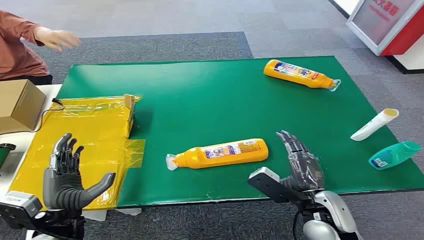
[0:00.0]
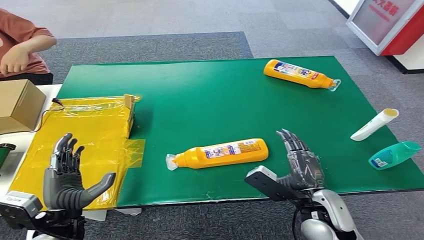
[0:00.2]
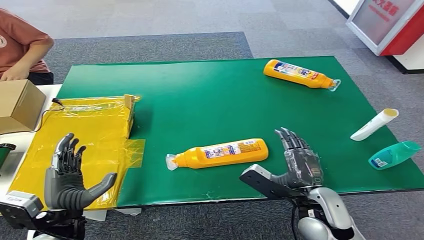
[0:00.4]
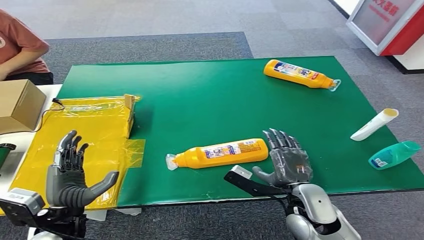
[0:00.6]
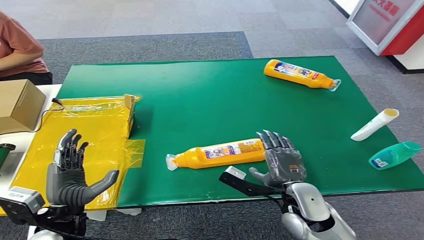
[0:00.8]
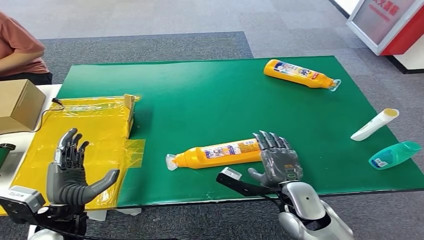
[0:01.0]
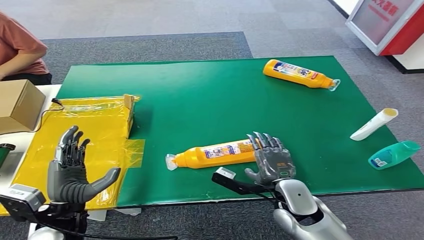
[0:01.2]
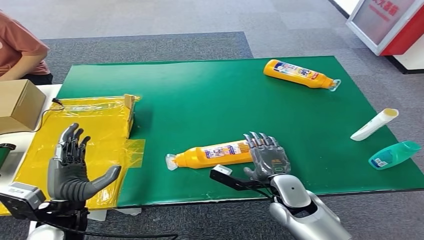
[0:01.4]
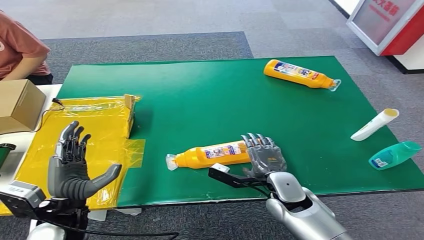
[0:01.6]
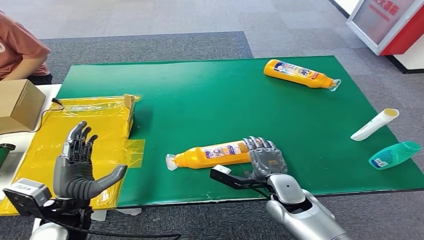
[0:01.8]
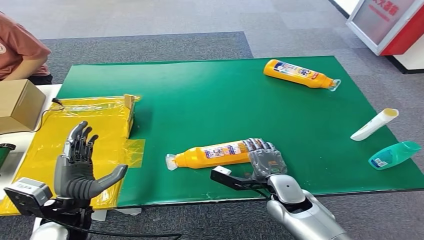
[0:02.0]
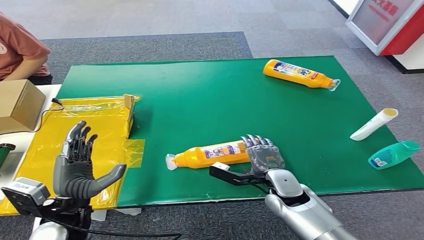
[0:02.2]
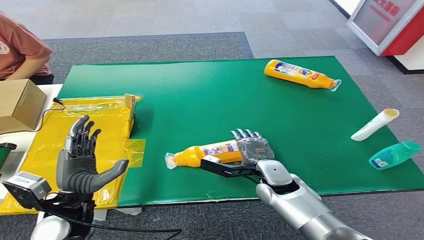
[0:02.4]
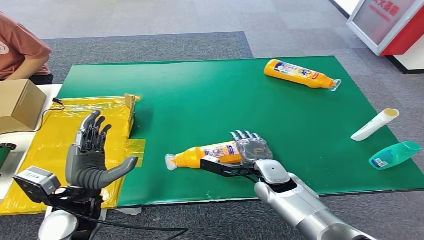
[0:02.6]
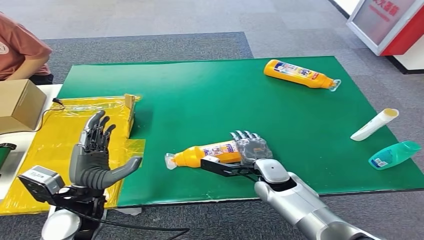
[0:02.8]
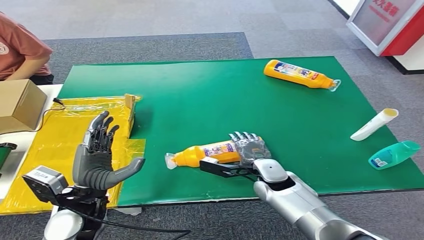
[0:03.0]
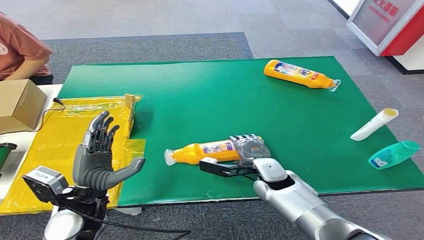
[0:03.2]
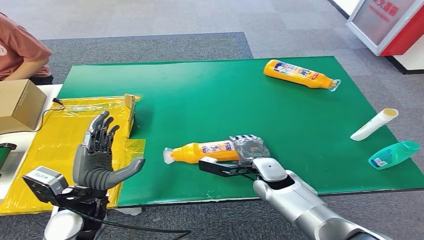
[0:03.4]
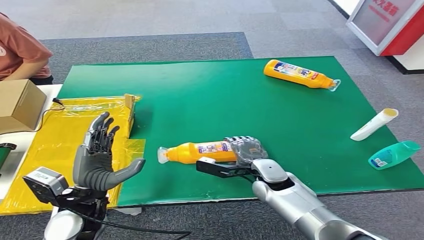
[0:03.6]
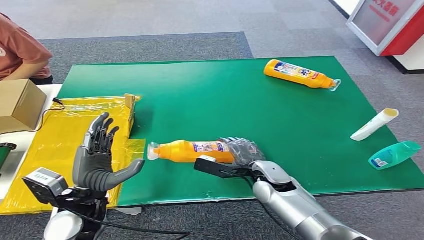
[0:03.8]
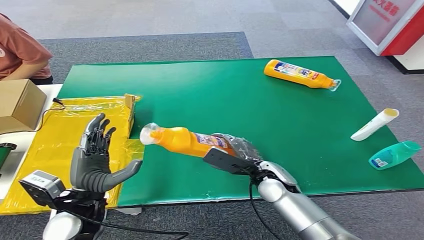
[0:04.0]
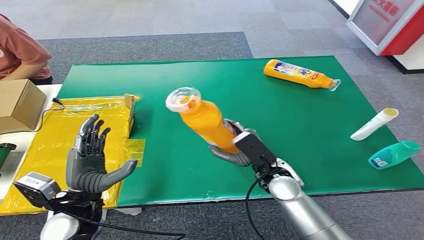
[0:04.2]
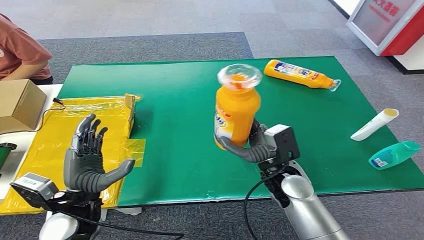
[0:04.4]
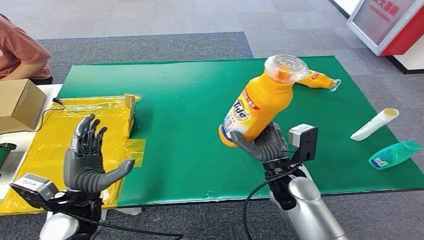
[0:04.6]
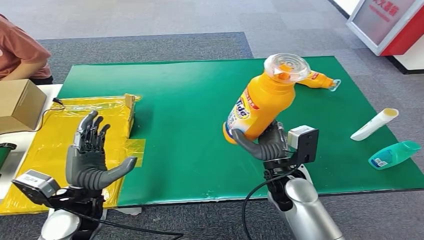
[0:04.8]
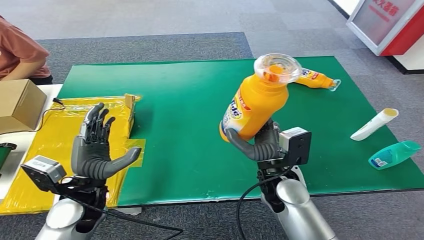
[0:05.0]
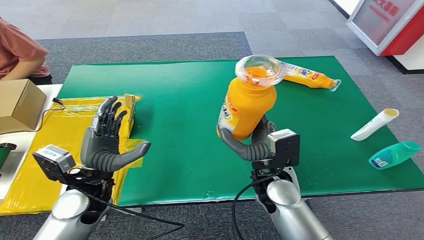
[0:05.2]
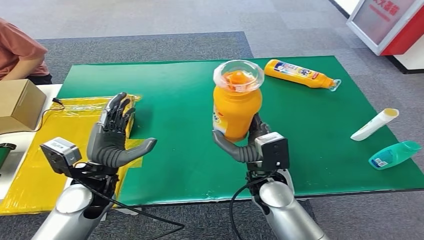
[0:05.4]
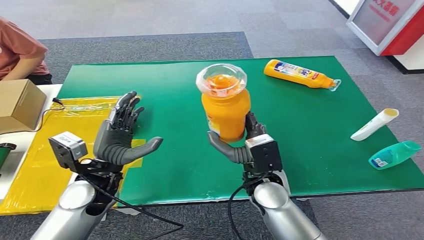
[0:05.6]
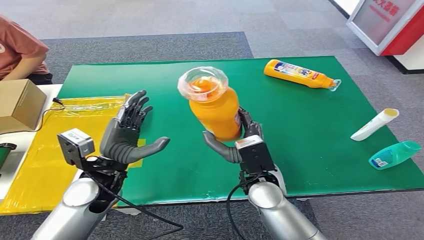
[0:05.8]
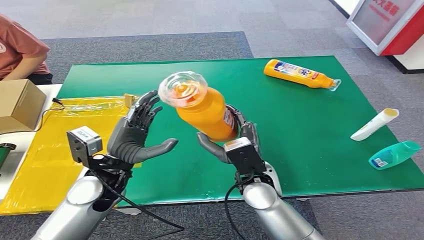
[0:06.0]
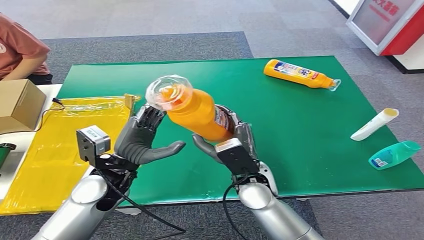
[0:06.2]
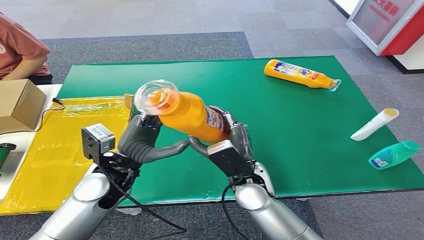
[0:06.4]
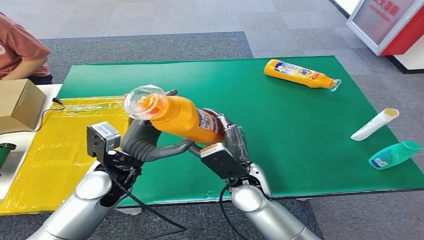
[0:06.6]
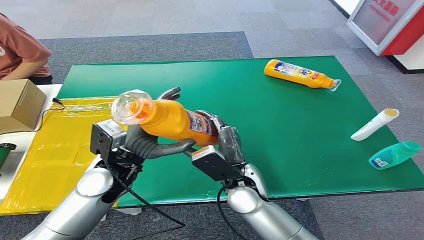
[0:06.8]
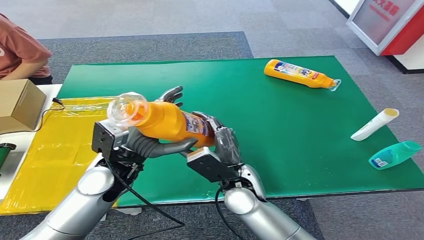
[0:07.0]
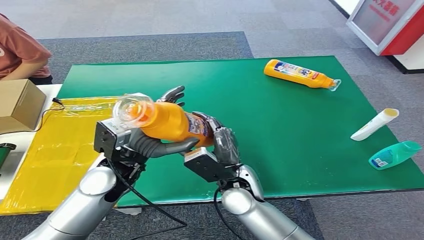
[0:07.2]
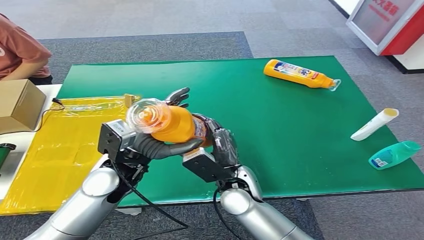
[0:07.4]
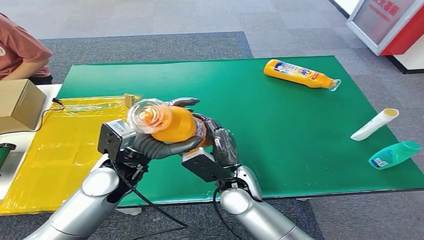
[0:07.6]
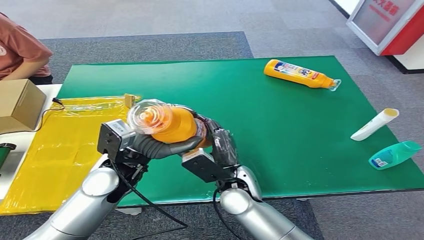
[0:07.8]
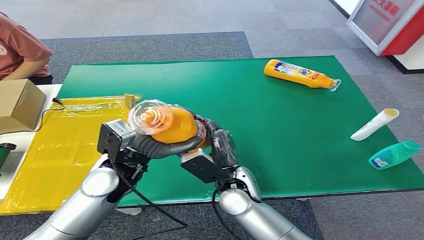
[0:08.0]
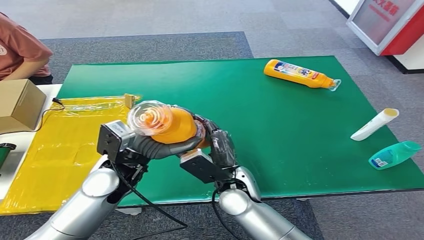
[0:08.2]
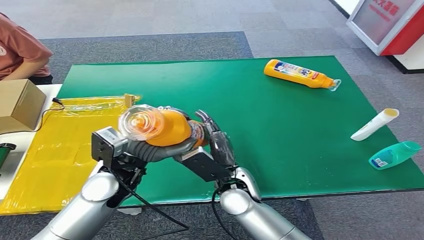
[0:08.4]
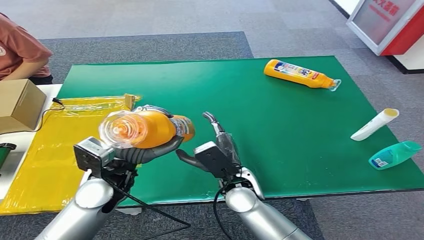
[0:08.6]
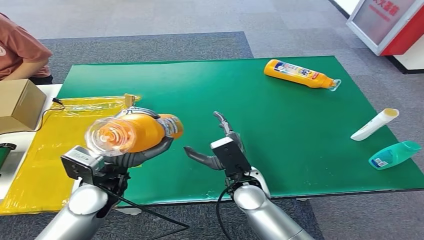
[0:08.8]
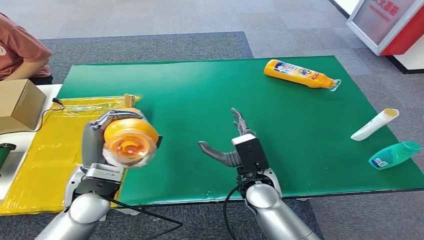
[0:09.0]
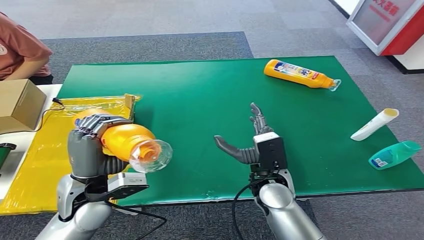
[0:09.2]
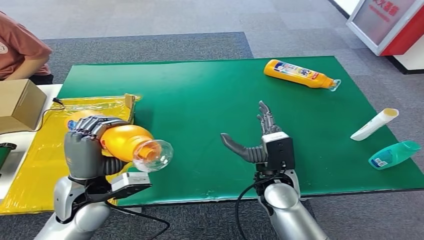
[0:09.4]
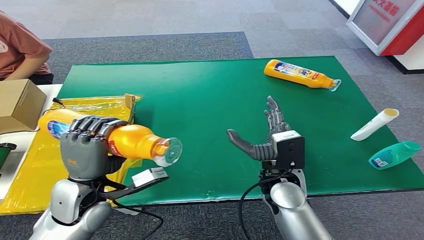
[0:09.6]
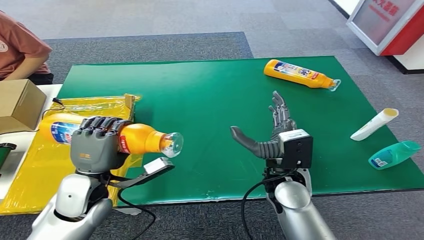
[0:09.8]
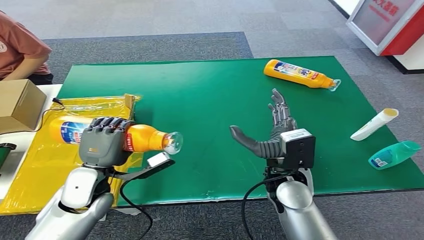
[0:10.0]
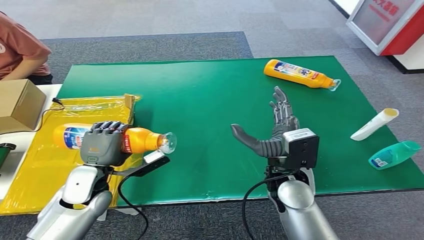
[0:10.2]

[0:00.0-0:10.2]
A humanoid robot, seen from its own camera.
Step, 0.0 to 5.4 s: Pick up the bottle from the table.
1.4 to 3.0 s: The right hand moves forward, approximately 5 cm.
3.0 to 4.4 s: The right hand shifts approximately 5 cm upward.
5.8 to 7.2 s: There are only small adjustments of the hands.
8.8 to 10.2 s: The right hand moves upward and to the right, approximately 10 cm, while the left hand goes some 10 cm downward and to the left.

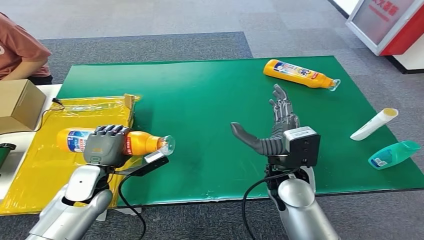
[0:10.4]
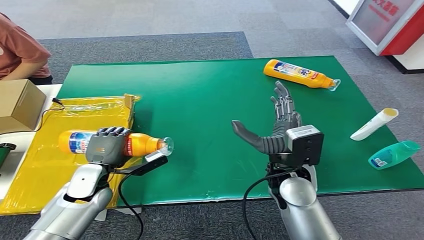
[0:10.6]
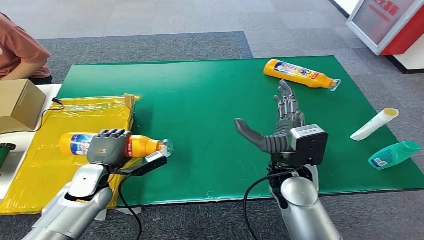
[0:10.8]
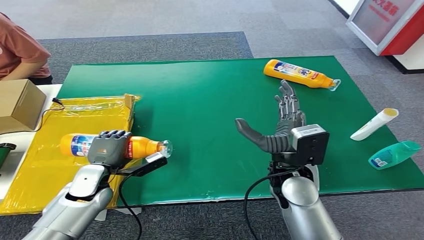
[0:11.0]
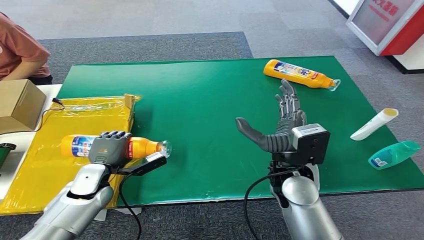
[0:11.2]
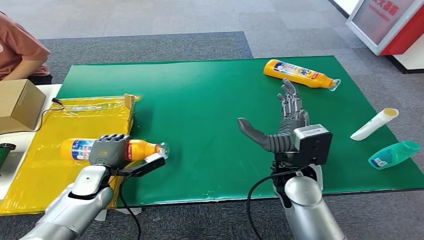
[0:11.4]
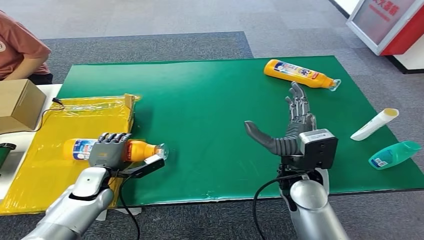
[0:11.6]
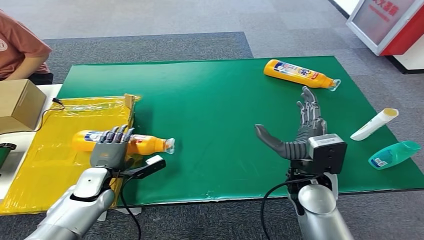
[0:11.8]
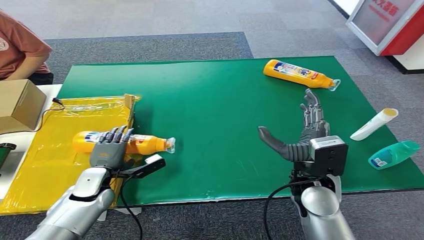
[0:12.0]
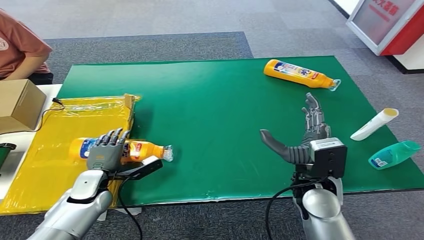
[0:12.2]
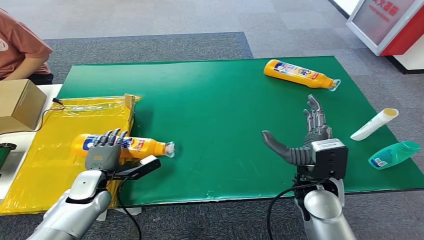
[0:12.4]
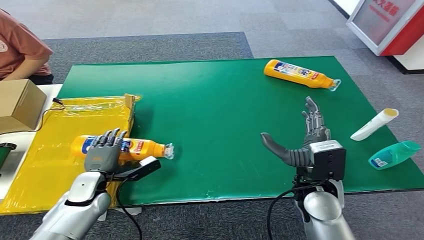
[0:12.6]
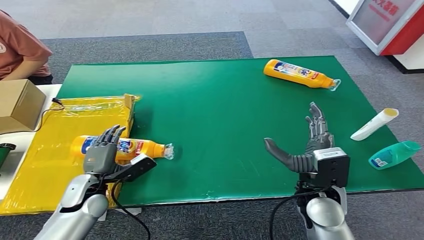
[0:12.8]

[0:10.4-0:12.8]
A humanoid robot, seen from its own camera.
Step, 10.4 to 12.8 s: Turn the bottle to the front side.
10.4 to 11.6 s: The left hand is displaced downward by approximately 5 cm.
11.6 to 12.8 s: The right hand moves about 5 cm.

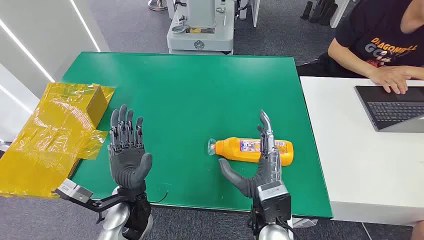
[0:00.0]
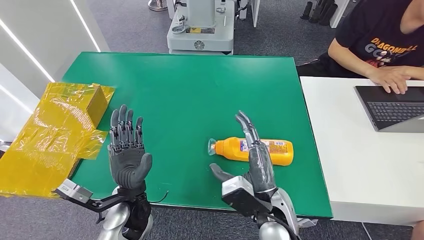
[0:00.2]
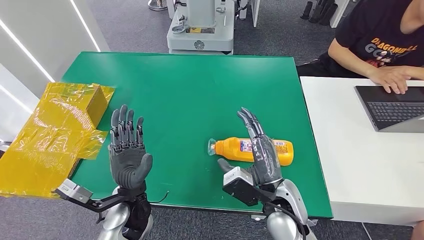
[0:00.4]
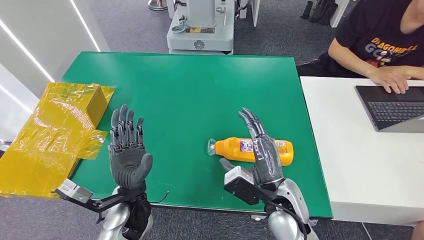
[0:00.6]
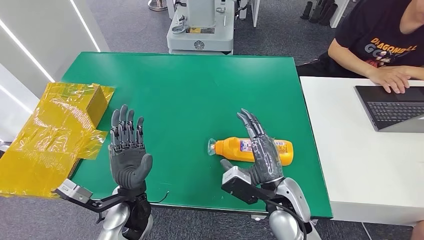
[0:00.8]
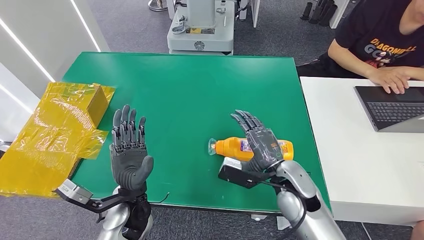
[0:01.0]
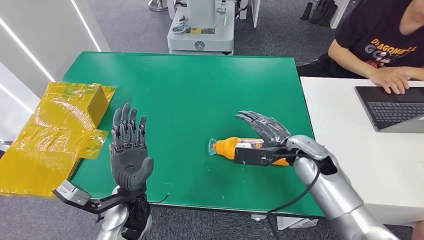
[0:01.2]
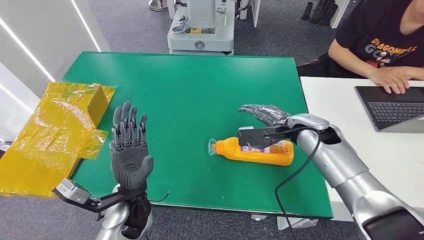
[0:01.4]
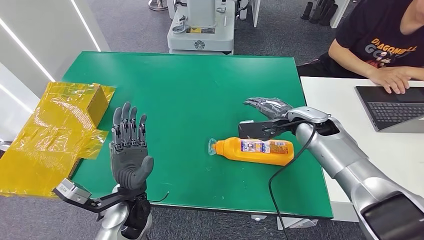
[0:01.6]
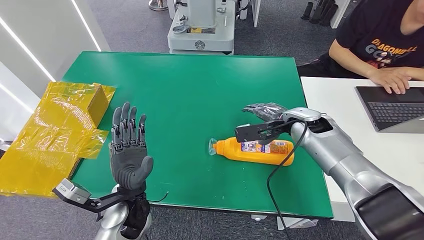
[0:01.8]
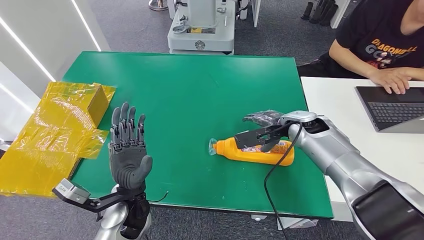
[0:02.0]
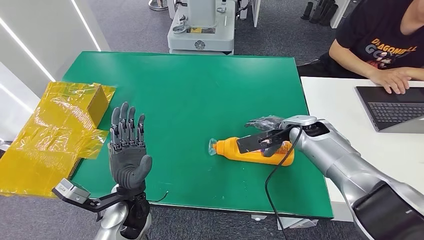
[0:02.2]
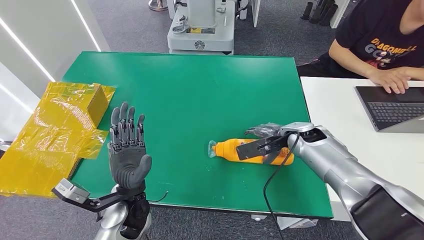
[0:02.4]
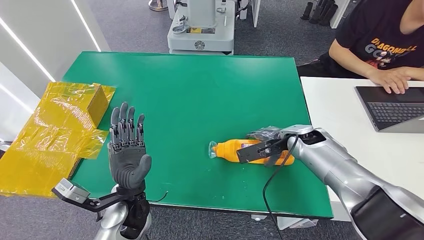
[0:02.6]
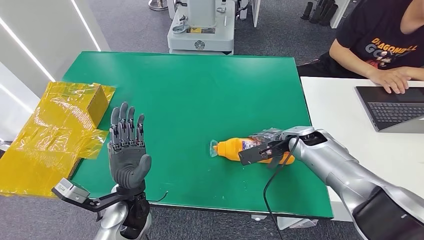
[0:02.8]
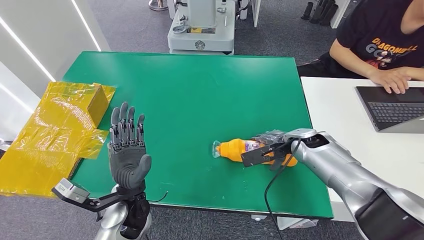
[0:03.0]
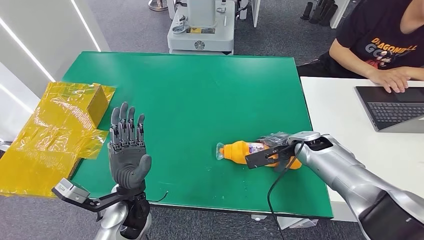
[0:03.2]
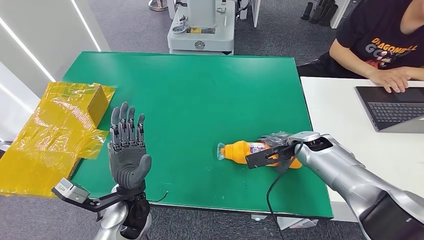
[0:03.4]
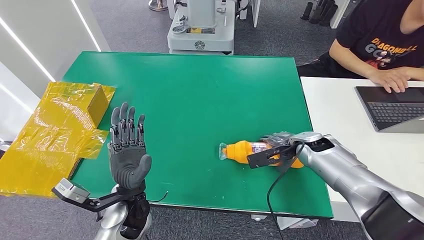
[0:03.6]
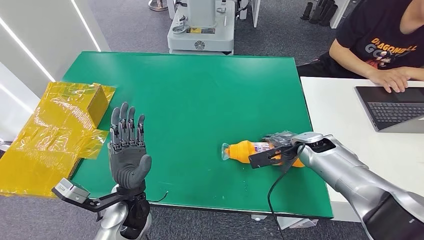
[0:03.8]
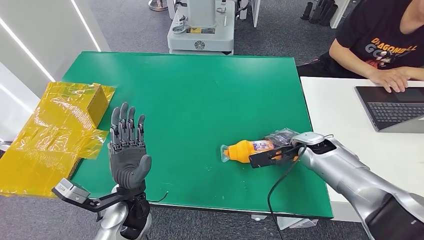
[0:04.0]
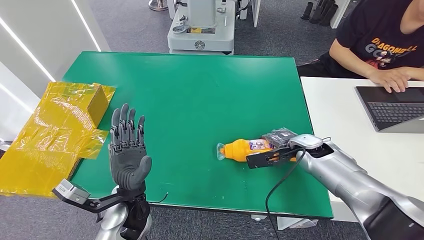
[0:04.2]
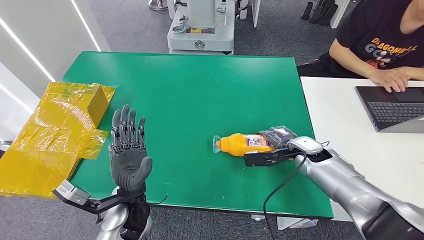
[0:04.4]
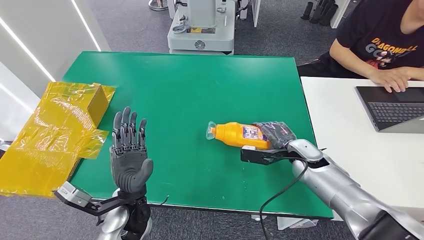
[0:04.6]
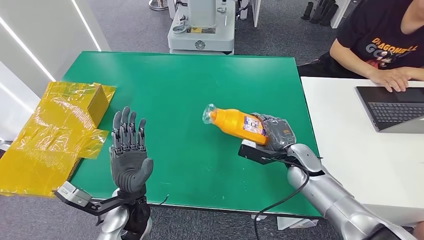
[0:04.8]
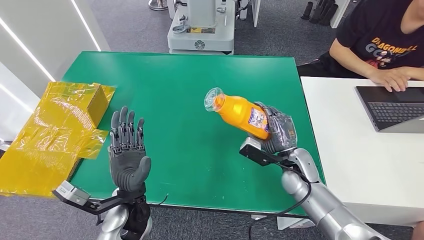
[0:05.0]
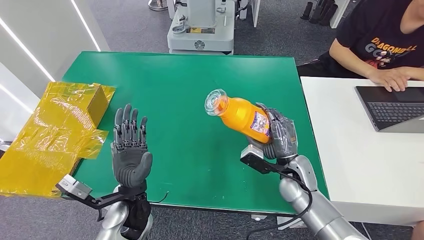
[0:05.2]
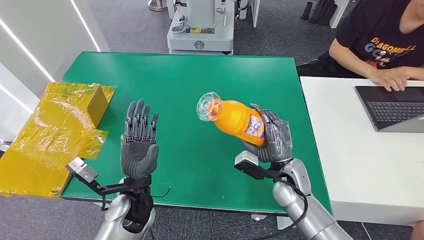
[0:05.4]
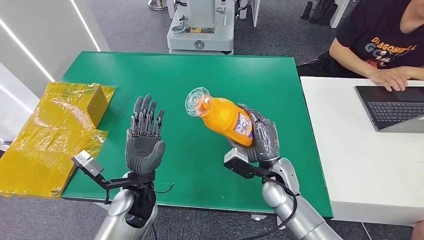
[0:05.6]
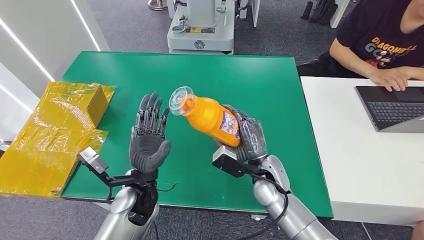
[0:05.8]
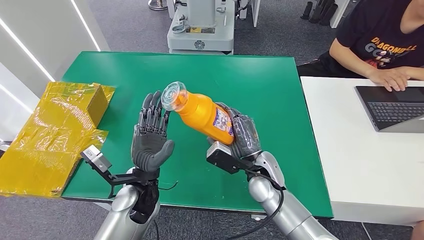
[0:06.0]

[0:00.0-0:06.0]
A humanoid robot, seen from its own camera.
Step, 0.0 to 4.8 s: Pick up the bottle from the table.
1.6 to 3.0 s: The right hand shifts some 5 cm downward.
3.0 to 4.4 s: The hands stay close to where they were, moving slightly.
4.4 to 6.0 s: The right hand shifts about 20 cm to the left and backward.
